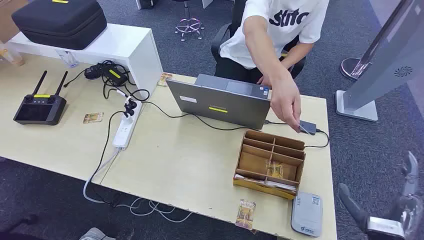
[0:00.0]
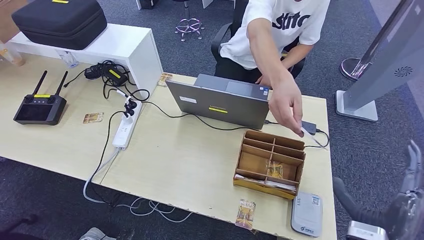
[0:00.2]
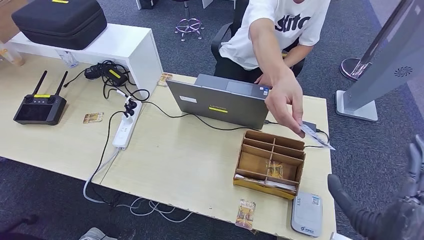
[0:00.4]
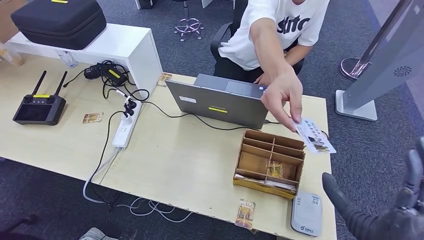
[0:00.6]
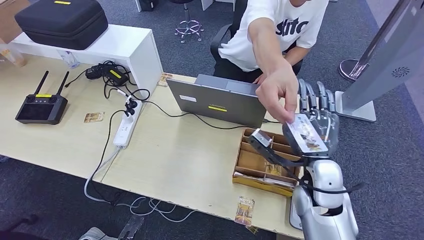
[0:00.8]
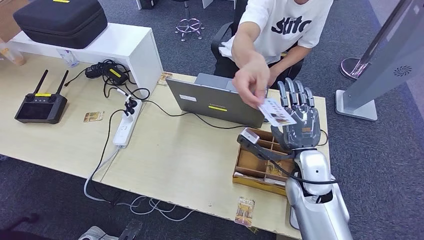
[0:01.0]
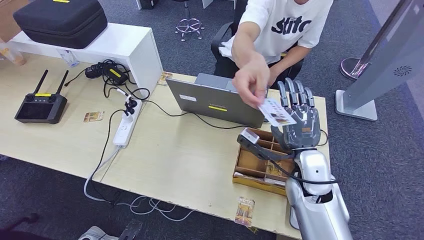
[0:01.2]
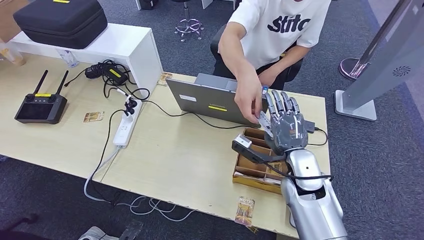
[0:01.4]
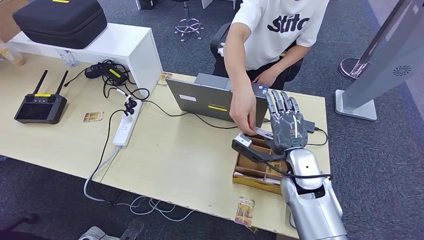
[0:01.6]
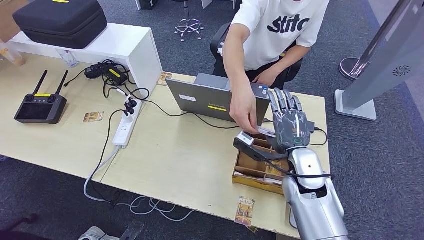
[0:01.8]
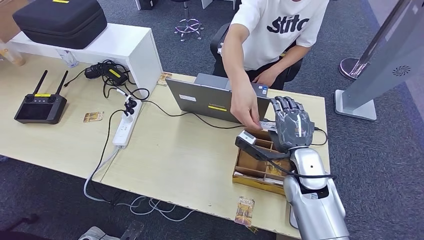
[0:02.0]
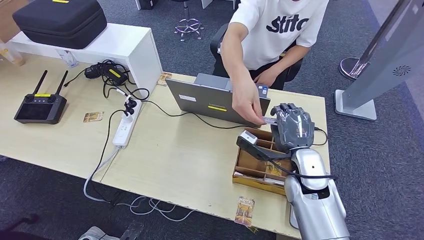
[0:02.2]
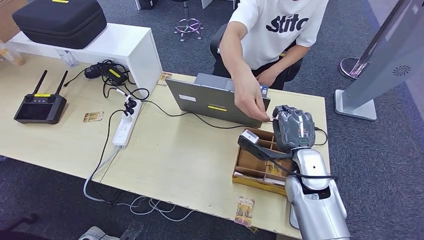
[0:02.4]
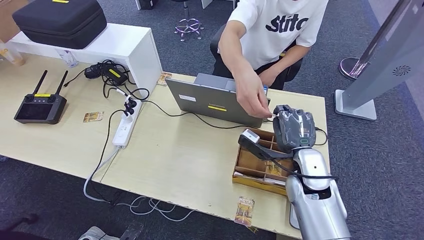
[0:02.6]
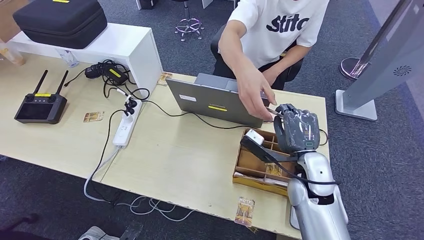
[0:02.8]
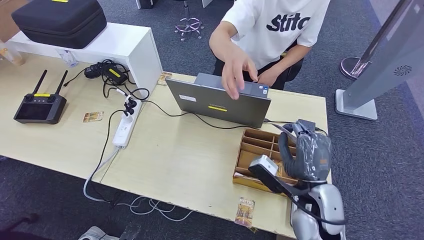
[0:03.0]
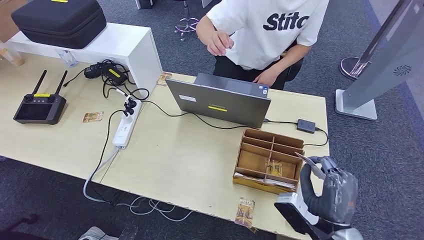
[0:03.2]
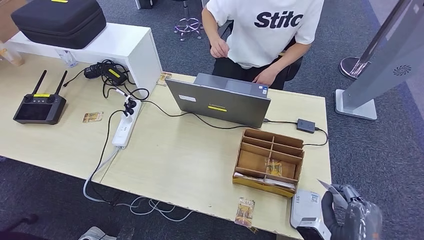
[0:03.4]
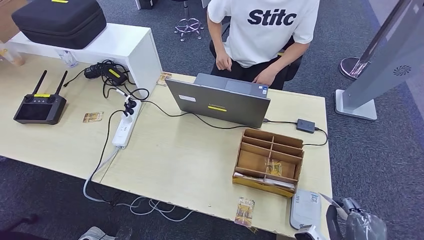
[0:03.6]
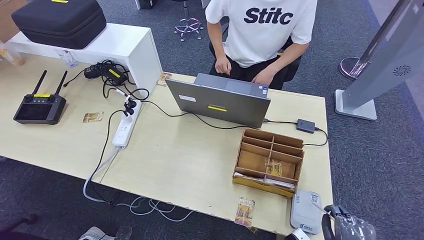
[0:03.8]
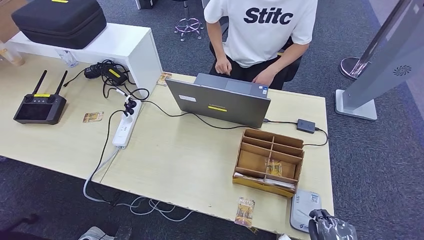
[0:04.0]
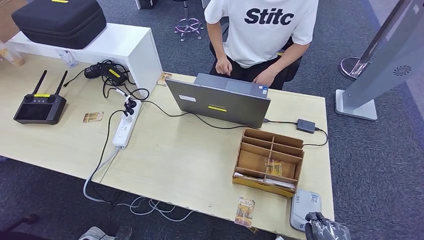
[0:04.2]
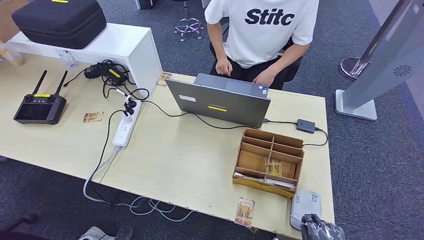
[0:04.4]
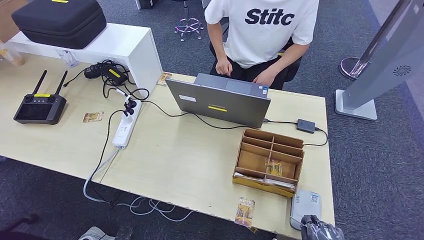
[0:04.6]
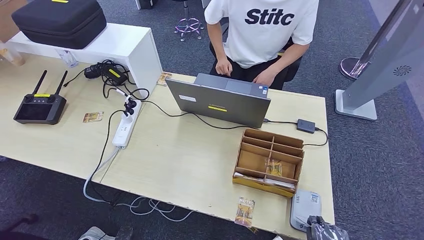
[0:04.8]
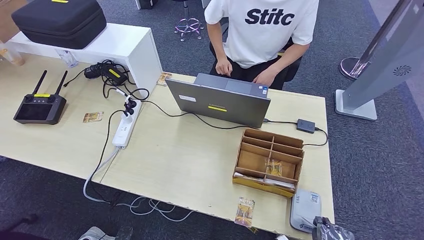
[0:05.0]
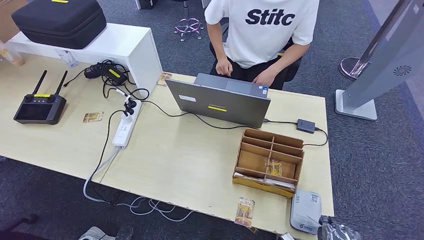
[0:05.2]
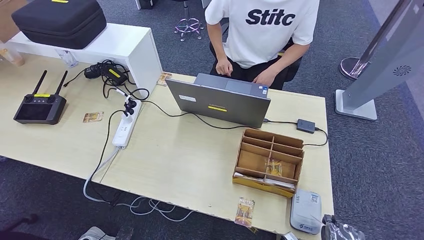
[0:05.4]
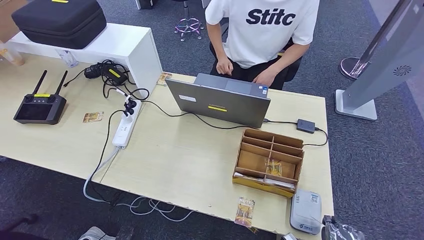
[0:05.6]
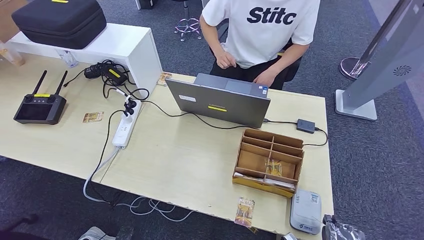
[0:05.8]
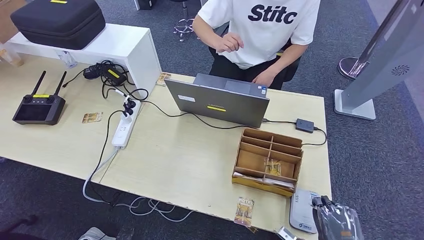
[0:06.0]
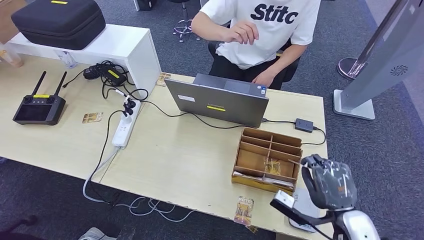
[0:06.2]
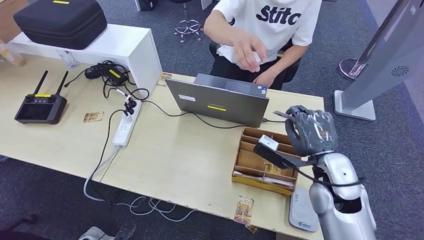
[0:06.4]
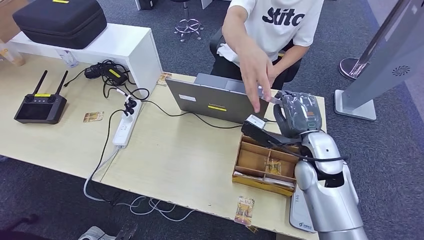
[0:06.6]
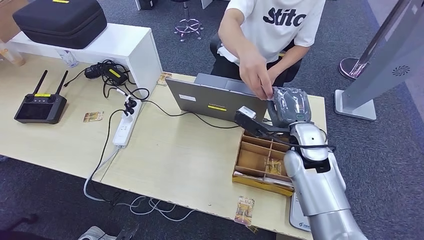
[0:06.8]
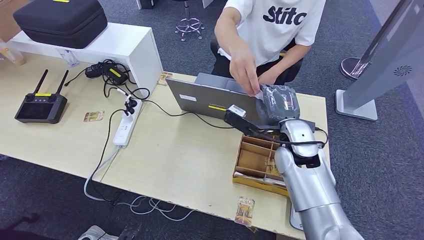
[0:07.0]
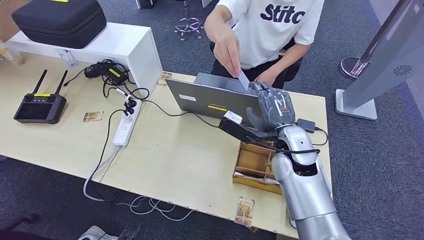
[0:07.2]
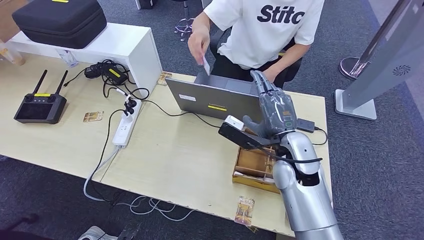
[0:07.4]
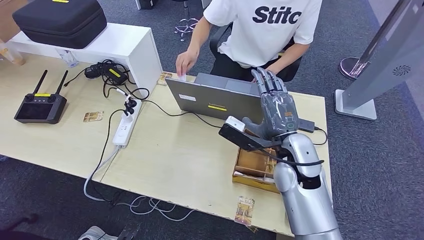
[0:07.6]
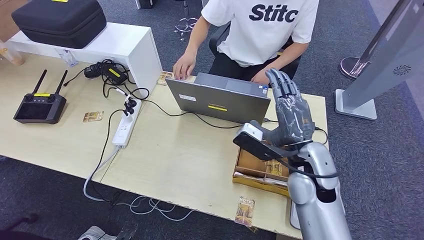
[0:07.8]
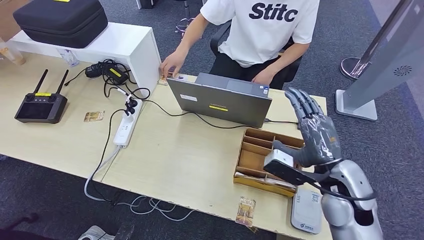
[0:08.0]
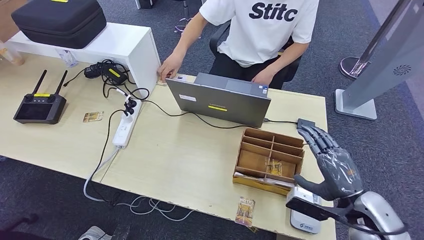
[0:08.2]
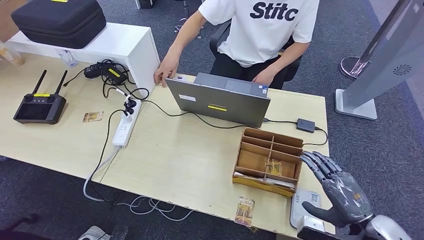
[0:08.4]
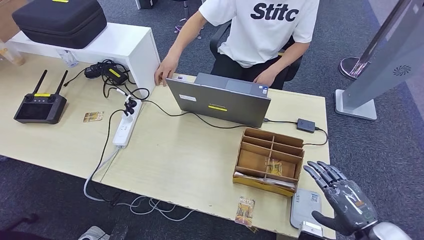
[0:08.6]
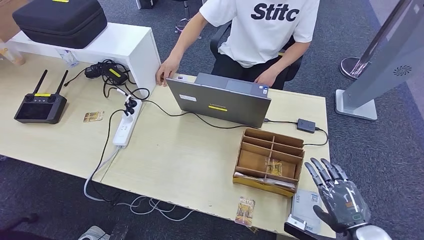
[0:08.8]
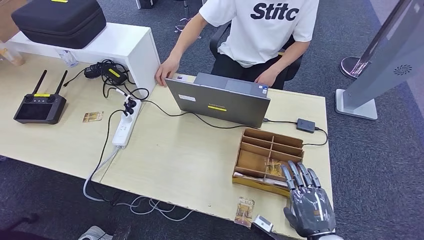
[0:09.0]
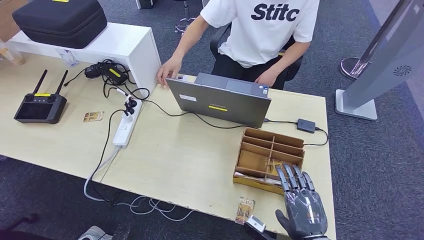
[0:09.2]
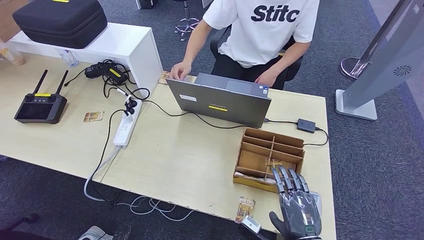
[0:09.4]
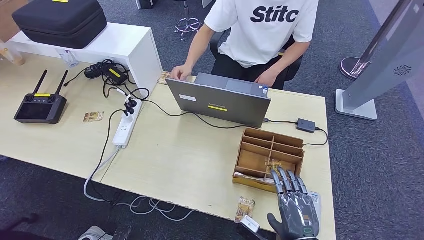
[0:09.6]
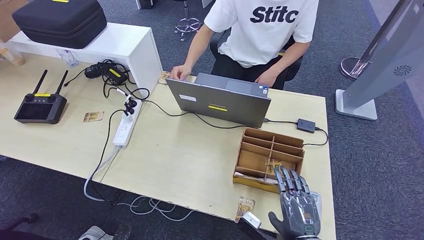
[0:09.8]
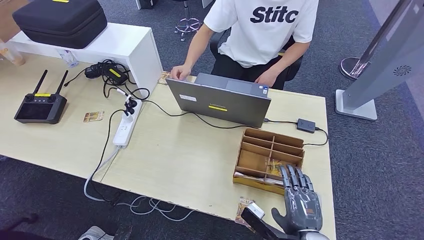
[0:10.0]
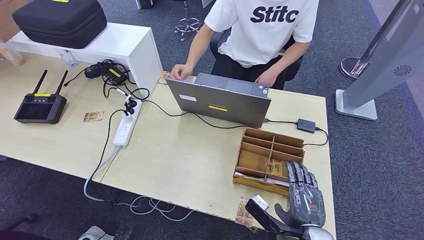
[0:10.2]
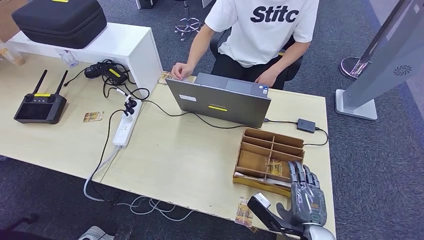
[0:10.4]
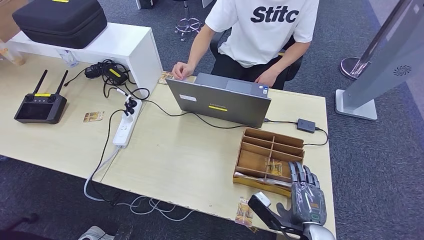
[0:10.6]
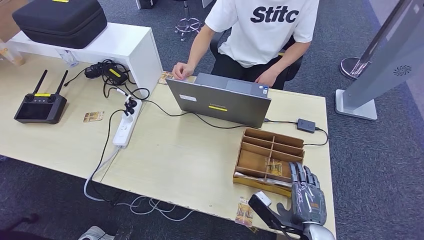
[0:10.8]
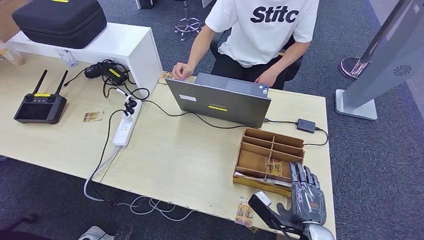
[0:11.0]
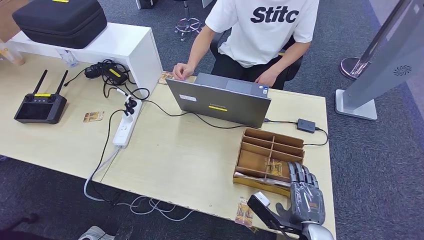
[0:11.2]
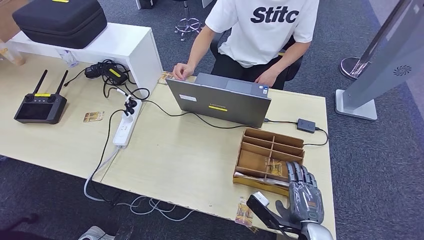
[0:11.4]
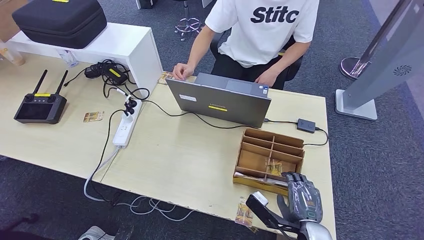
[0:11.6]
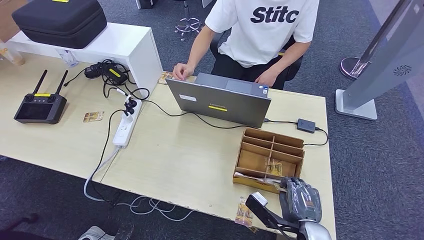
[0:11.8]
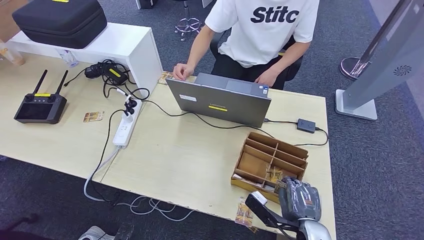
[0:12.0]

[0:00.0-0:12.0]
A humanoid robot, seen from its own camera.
Step, 0:00.0 to 0:04.2: Take the ID card from the person's hand.
Step, 0:04.4 to 0:06.0: Place the ID card on the card reader.
Step, 0:06.4 to 0:08.8: Hand the ID card to the person.
0:01.6 to 0:03.0: The right hand moves backward, about 5 cm.
0:03.0 to 0:04.4: The right hand heads backward, downward and to the right, covering some 20 cm.
0:04.4 to 0:06.0: The right hand ends up some 5 cm from where it was.
0:06.0 to 0:07.6: The right hand travels forward, to the left and upward by approximately 30 cm.
0:07.6 to 0:09.0: The right hand heads backward, downward and to the right, covering about 25 cm.
0:10.4 to 0:12.0: The hands stay close to where they were, moving slightly.

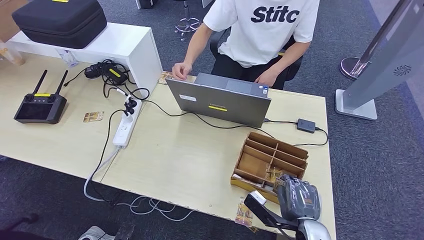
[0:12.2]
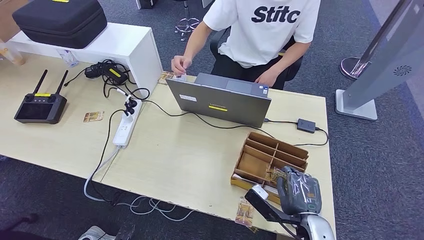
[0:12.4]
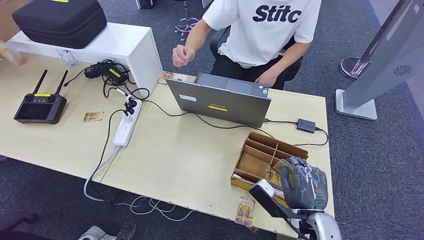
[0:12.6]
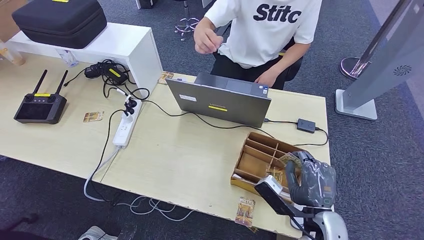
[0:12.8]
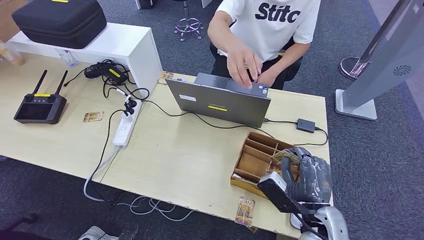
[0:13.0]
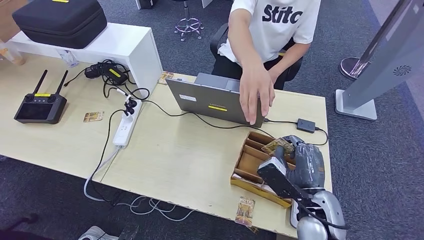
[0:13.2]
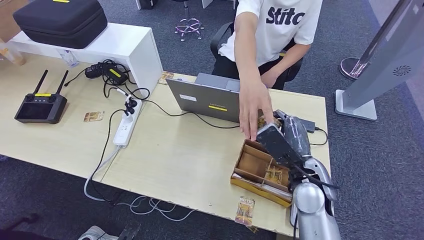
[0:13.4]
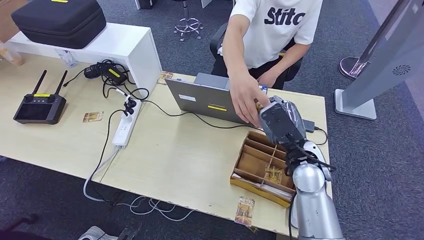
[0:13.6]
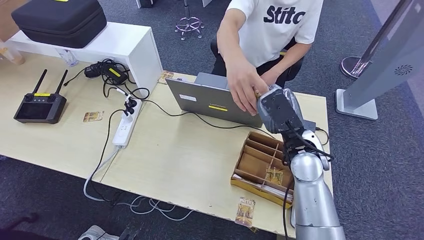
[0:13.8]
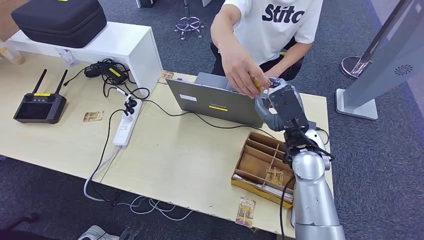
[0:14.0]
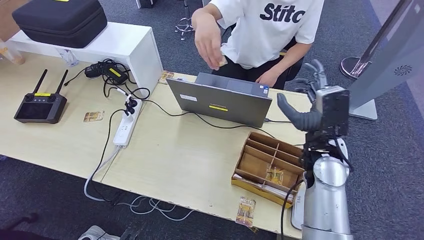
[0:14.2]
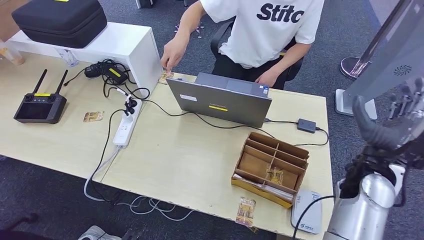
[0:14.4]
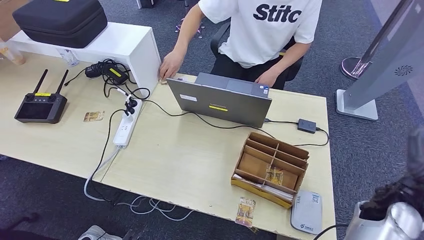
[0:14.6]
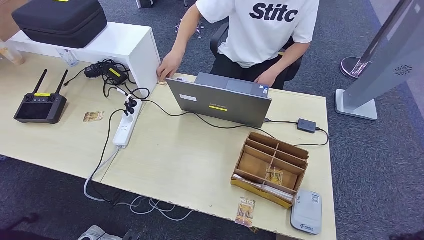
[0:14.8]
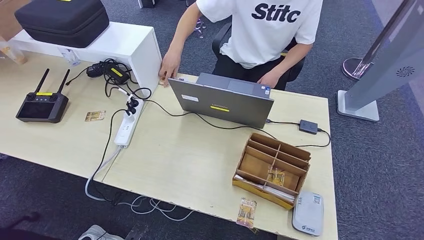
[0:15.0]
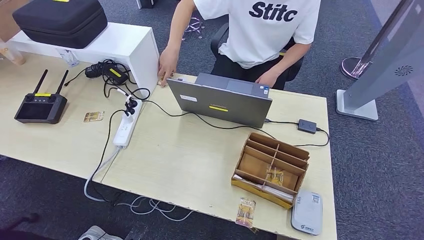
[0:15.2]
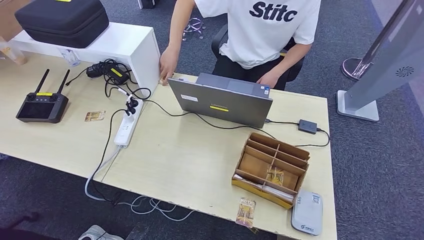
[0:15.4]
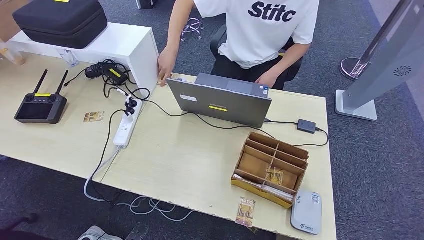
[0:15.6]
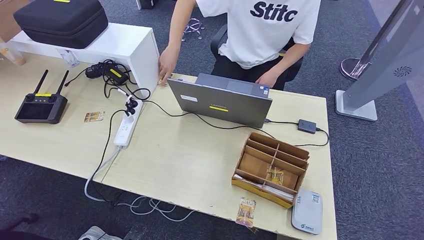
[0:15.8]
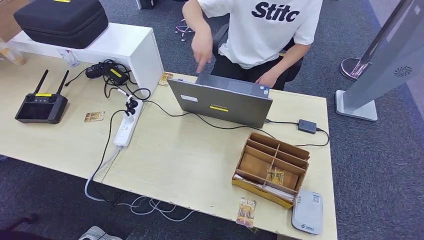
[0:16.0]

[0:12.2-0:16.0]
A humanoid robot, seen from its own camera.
Step, 0:12.2 to 0:13.0: Pick up the room key from the key card box.
Step, 0:13.4 to 0:16.0: Hand the room key to the person.
0:12.2 to 0:13.4: The right hand heads upward and forward, covering roughly 15 cm.
0:13.4 to 0:14.8: The right hand travels to the right and downward by approximately 25 cm.
0:14.8 to 0:16.0: The right hand travels downward and backward by approximately 35 cm.
